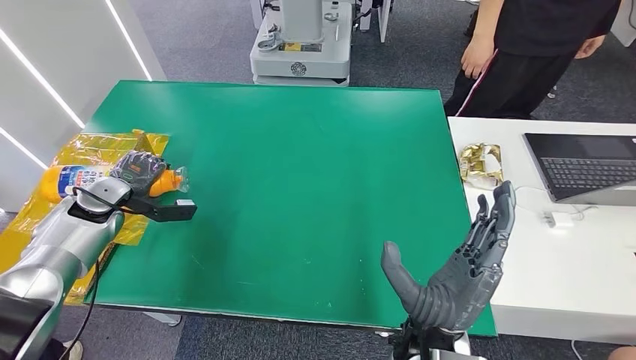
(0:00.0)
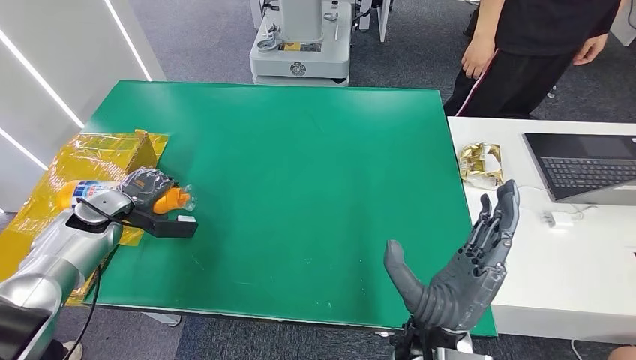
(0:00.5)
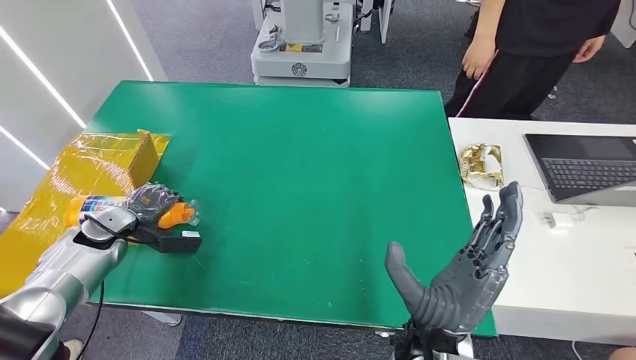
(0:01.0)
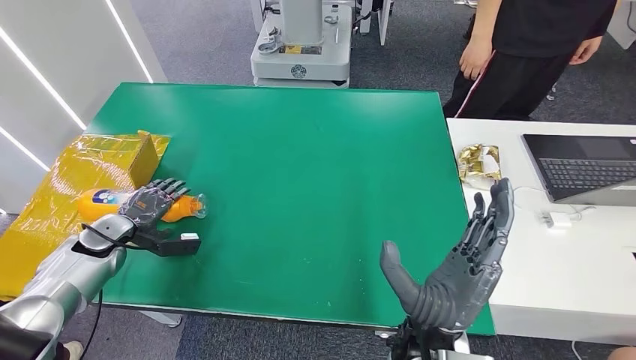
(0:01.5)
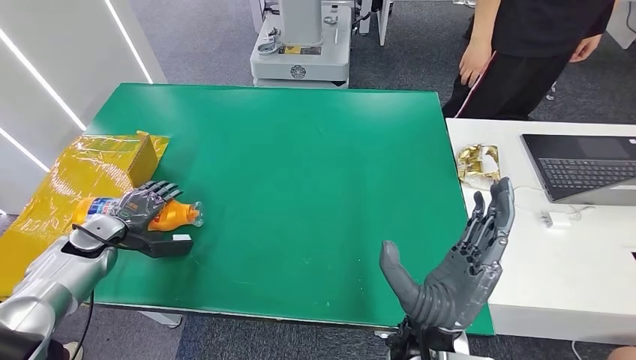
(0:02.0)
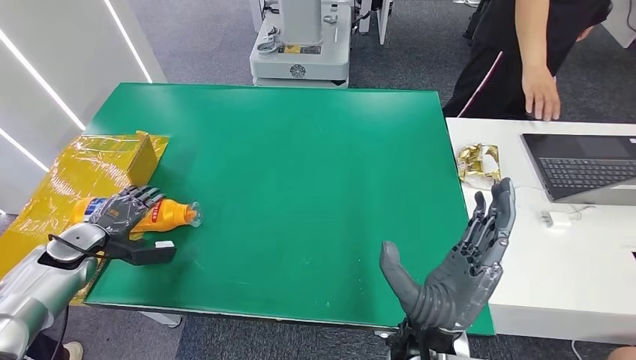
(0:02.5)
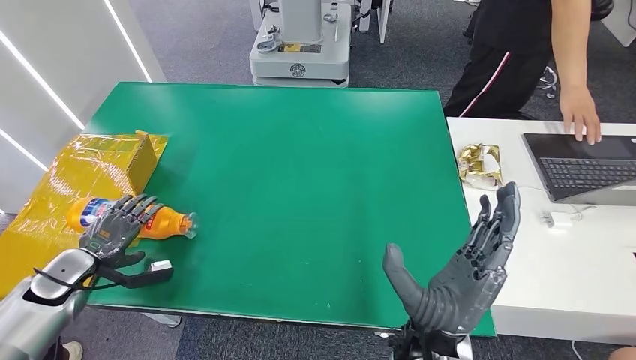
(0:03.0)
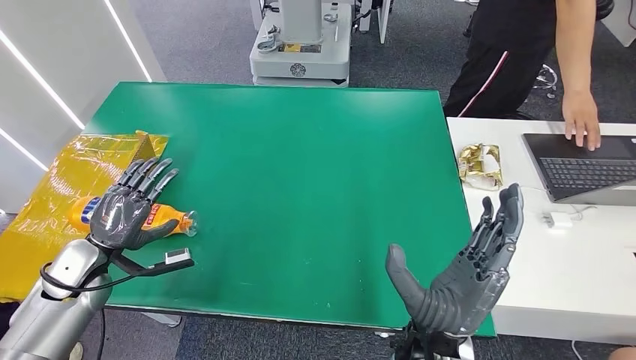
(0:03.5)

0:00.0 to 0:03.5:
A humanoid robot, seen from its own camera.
Step, 0:00.0 to 0:03.5: Turn the bottle to the front side.
0:00.0 to 0:02.0: The left hand heads downward and backward, covering roughly 10 cm.
0:02.0 to 0:03.5: The left hand moves backward and to the right, some 10 cm.

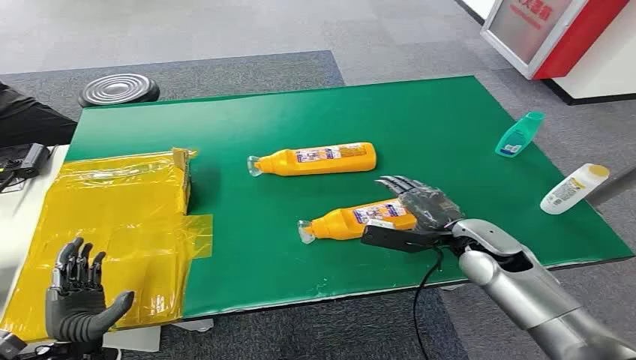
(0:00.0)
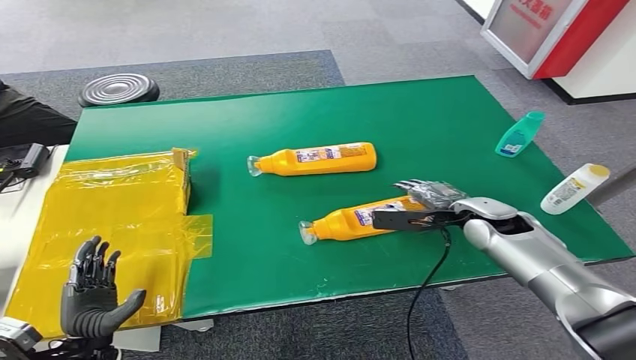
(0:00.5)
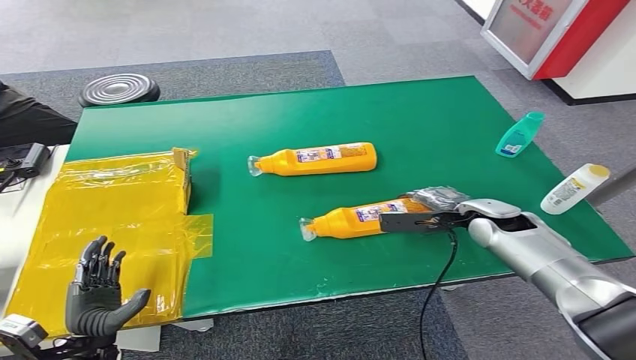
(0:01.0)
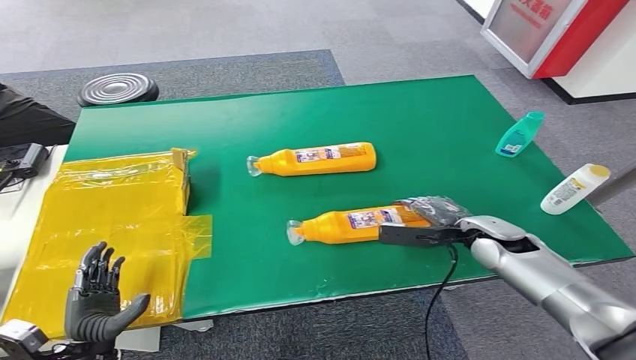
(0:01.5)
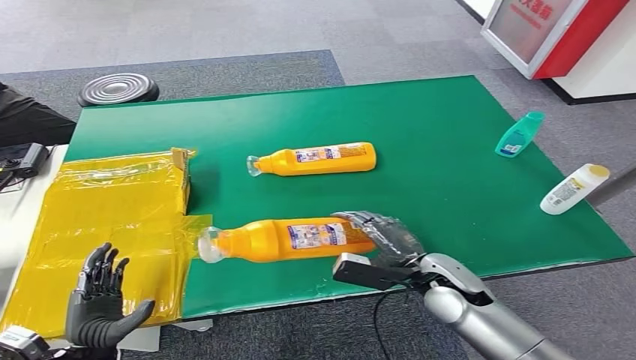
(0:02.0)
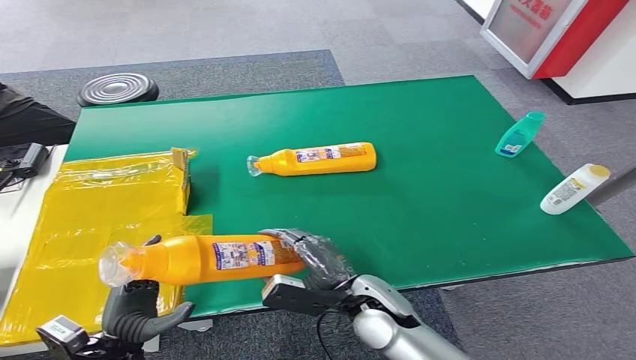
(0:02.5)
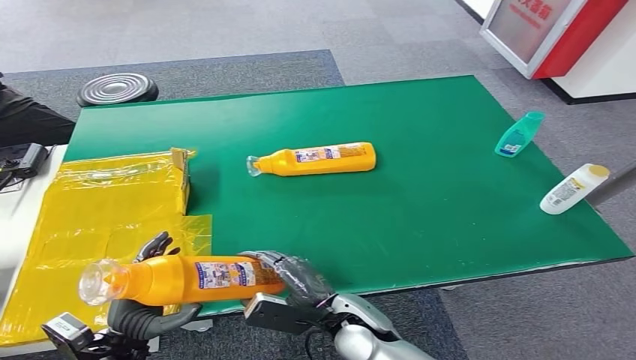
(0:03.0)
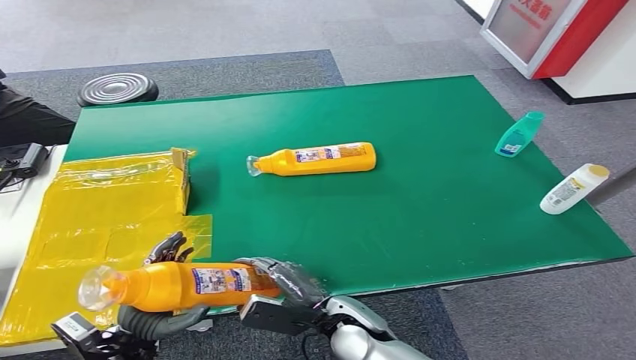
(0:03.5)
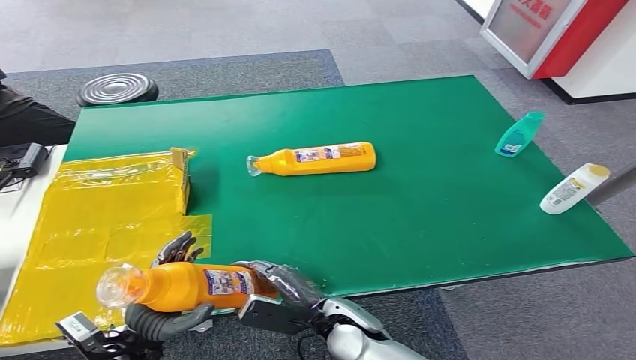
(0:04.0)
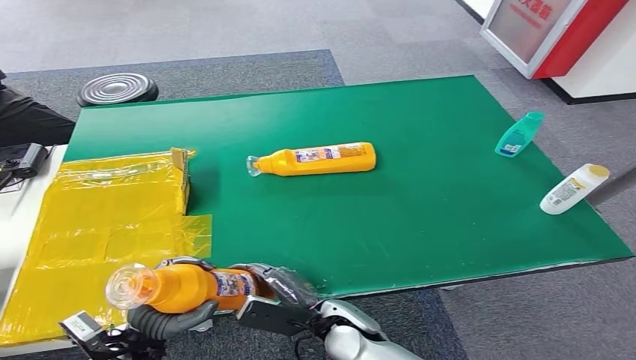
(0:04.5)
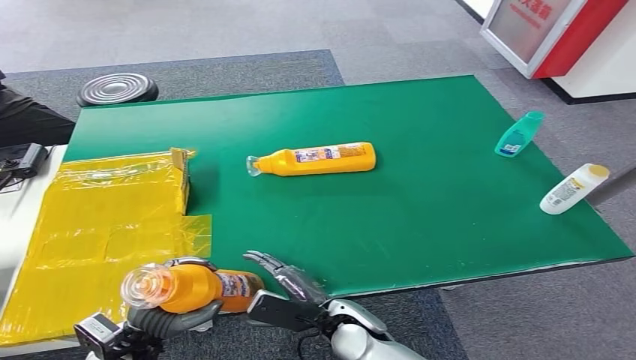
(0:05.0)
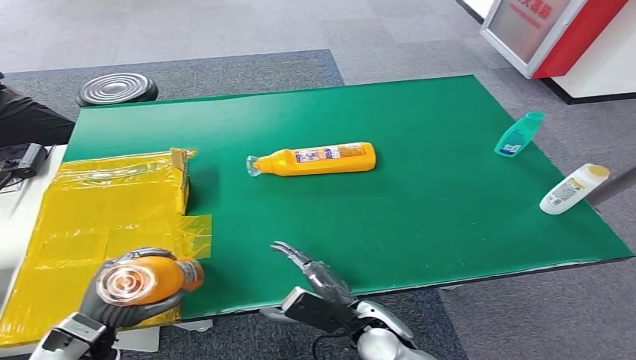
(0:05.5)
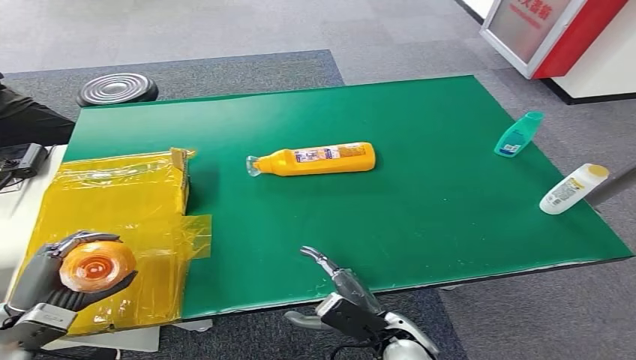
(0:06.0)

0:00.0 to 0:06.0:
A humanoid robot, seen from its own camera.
Step, 0:00.0 to 0:02.0: Pick up the bottle from the table.
Step, 0:04.0 to 0:06.0: Turn the bottle to the front side.
0:02.0 to 0:04.0: The left hand is displaced to the right by about 5 cm; the right hand travels to the left by approximately 15 cm.
0:04.0 to 0:06.0: The right hand travels to the right by about 5 cm. Meanwhile the left hand is displaced to the left and upward by about 15 cm.
